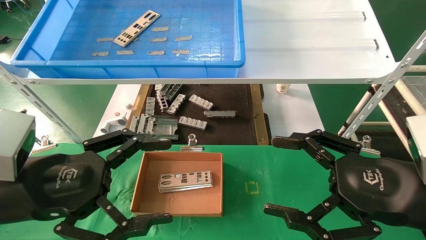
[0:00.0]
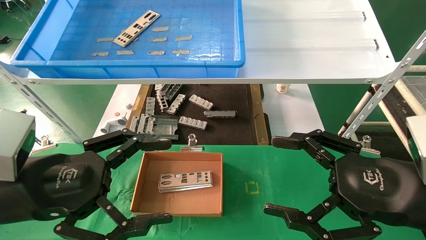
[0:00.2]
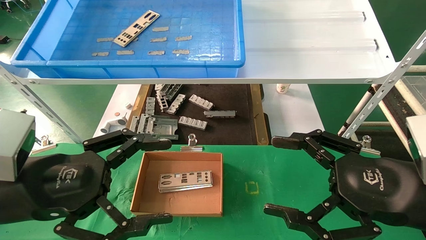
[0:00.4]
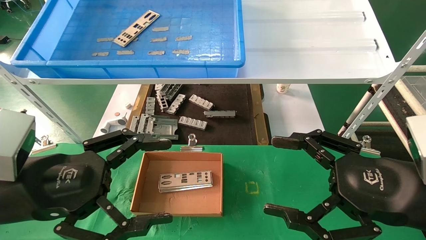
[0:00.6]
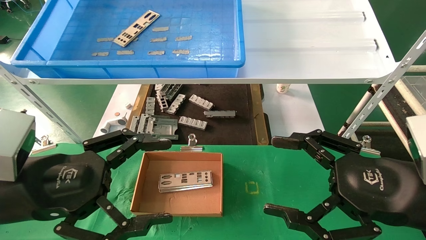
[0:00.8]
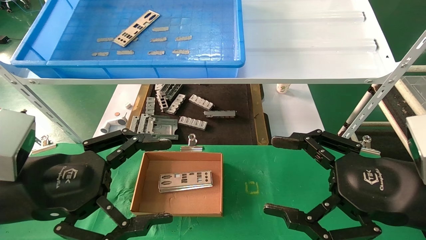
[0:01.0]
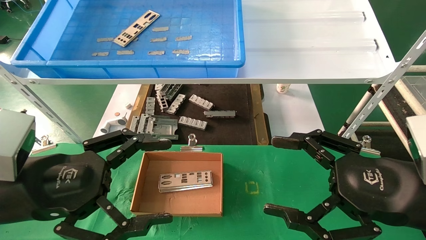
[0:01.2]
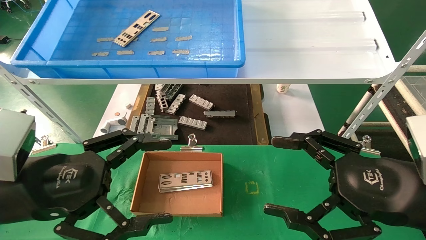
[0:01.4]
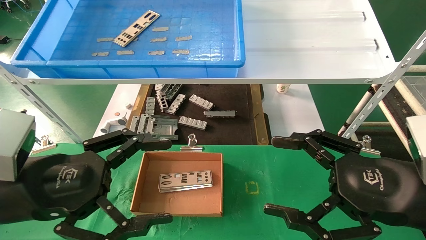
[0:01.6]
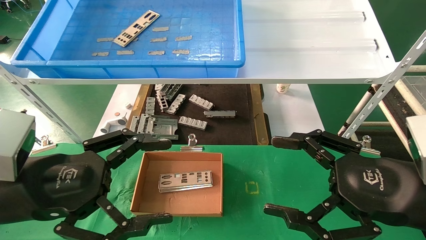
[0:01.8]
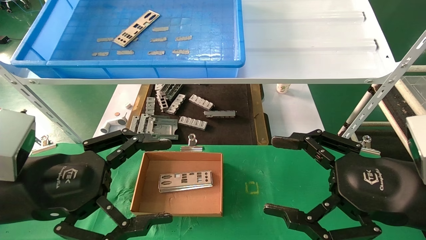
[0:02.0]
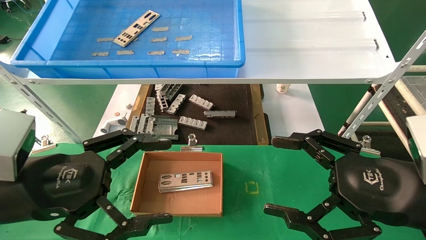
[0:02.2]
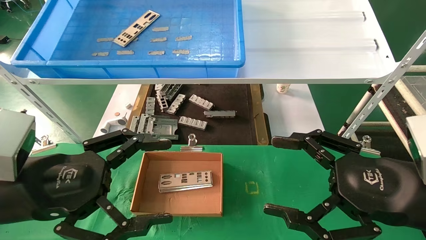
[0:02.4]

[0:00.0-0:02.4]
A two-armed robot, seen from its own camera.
Task of the whole recording: pick up the parts on the tray and put them in the cardboard box.
0:00.0 to 0:02.4: Both grippers stay put.
